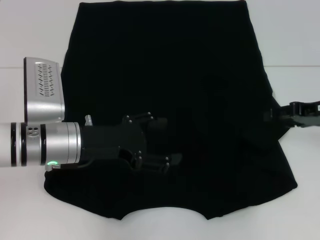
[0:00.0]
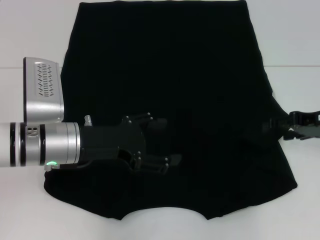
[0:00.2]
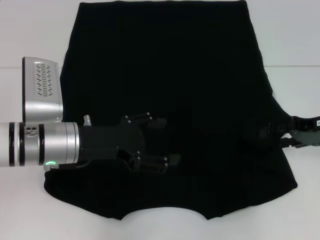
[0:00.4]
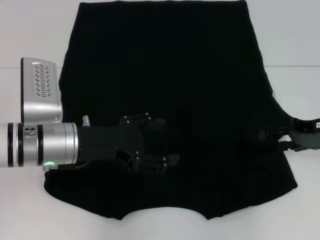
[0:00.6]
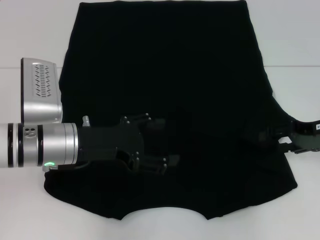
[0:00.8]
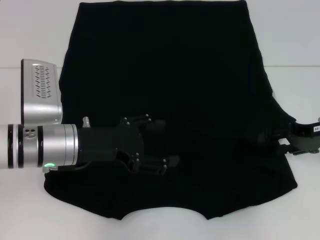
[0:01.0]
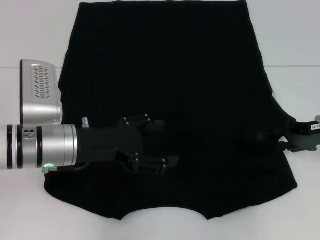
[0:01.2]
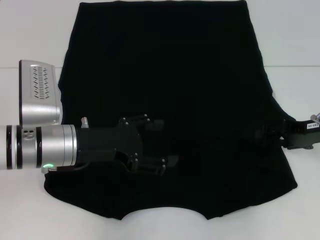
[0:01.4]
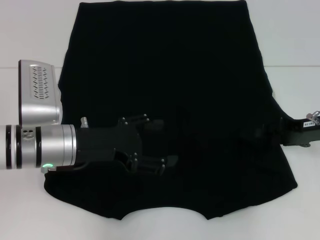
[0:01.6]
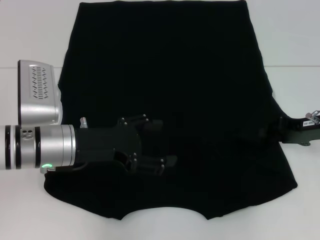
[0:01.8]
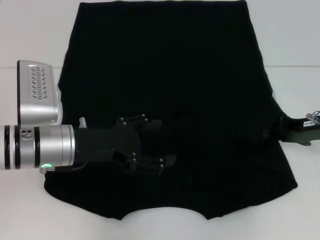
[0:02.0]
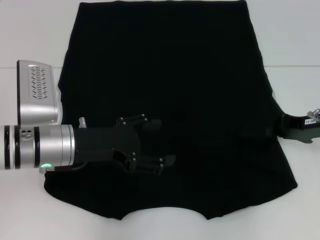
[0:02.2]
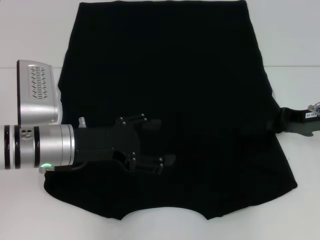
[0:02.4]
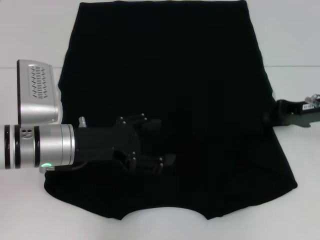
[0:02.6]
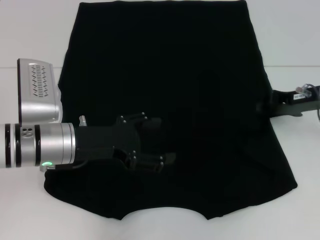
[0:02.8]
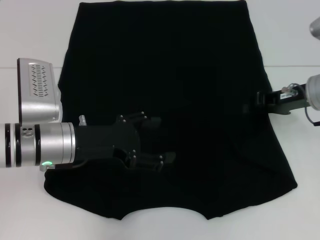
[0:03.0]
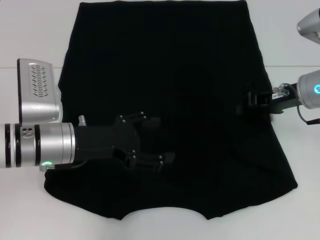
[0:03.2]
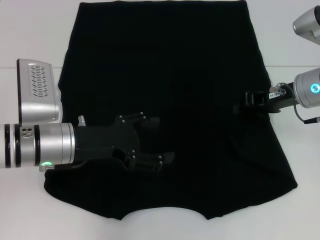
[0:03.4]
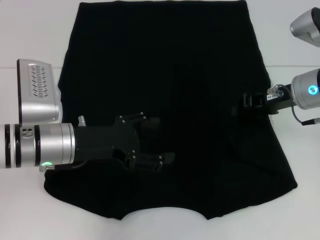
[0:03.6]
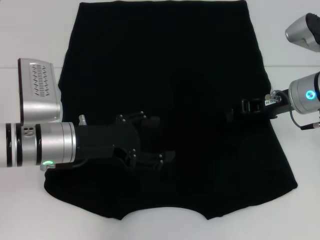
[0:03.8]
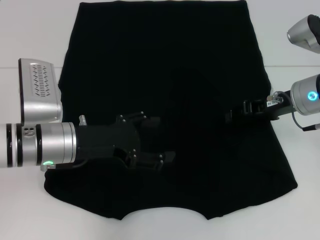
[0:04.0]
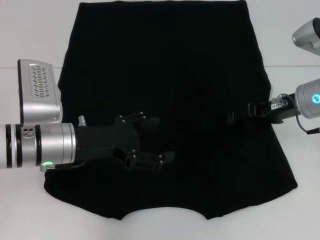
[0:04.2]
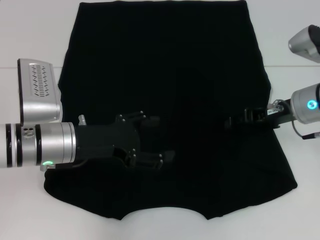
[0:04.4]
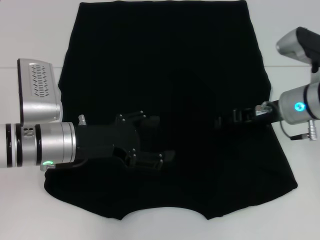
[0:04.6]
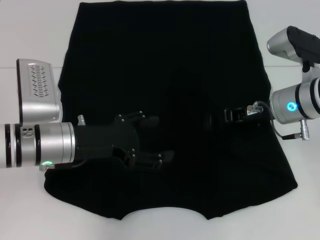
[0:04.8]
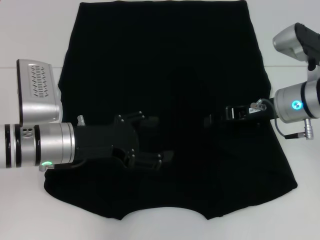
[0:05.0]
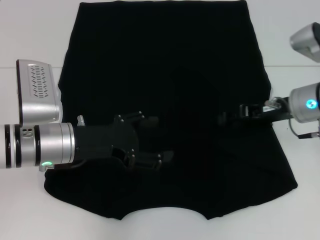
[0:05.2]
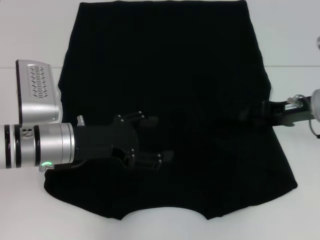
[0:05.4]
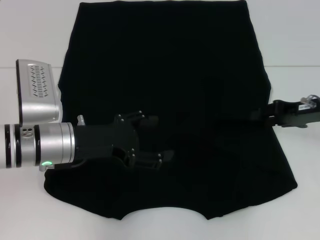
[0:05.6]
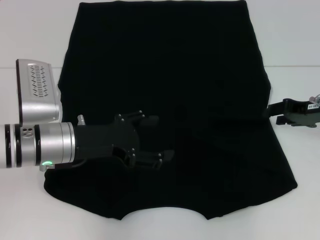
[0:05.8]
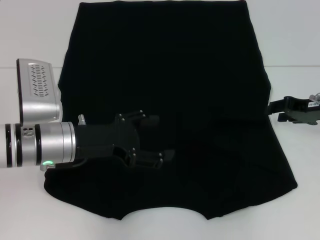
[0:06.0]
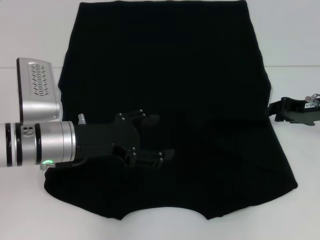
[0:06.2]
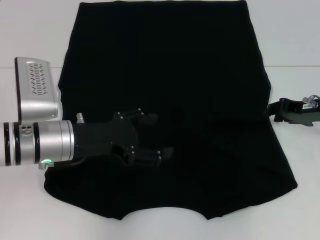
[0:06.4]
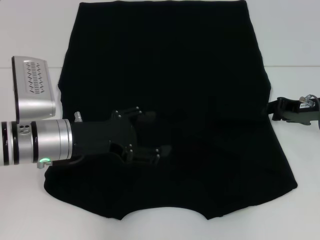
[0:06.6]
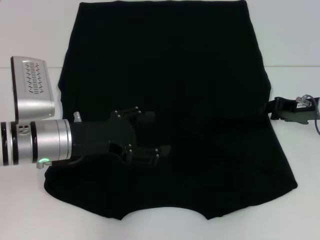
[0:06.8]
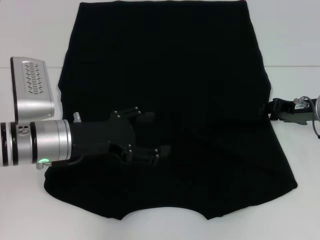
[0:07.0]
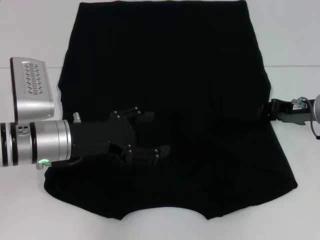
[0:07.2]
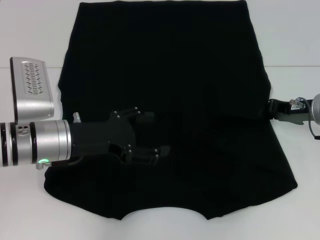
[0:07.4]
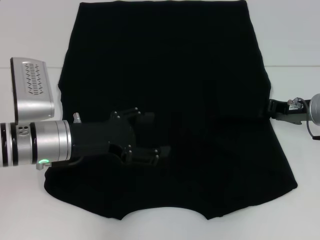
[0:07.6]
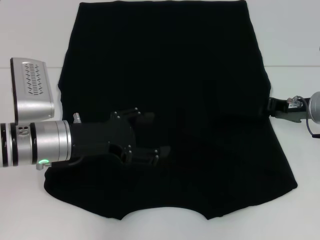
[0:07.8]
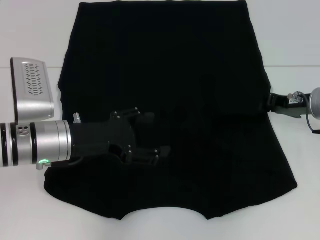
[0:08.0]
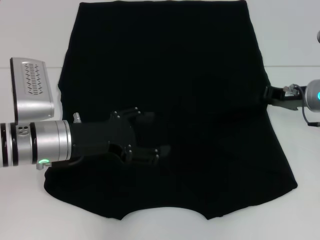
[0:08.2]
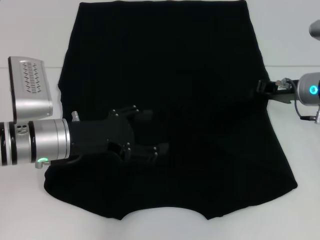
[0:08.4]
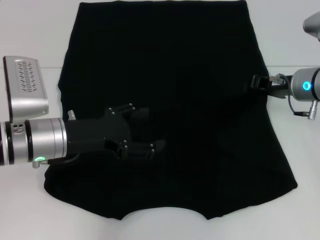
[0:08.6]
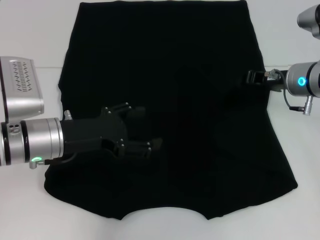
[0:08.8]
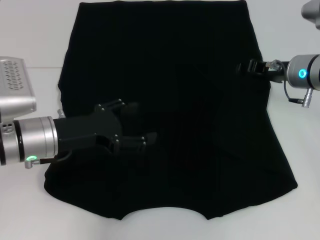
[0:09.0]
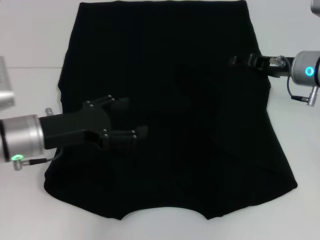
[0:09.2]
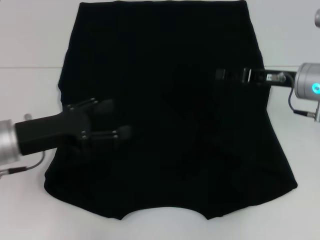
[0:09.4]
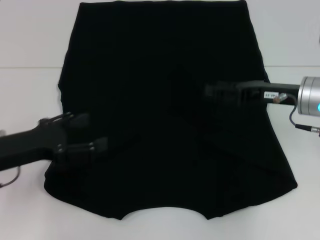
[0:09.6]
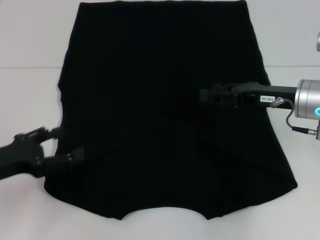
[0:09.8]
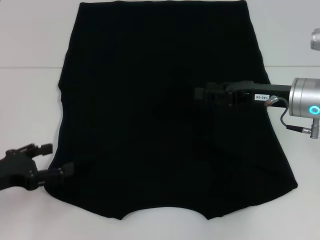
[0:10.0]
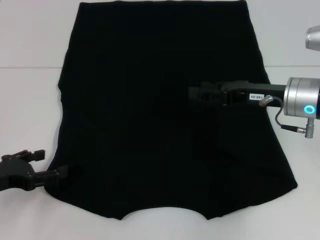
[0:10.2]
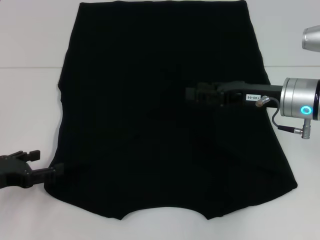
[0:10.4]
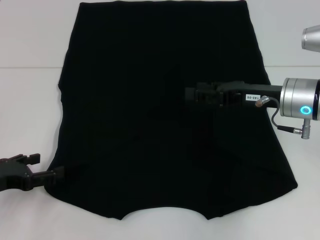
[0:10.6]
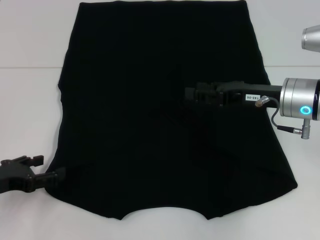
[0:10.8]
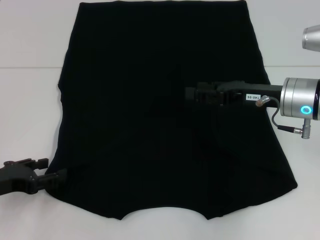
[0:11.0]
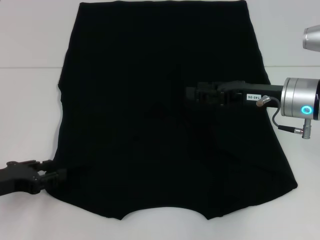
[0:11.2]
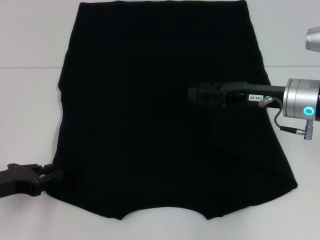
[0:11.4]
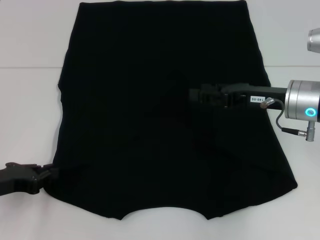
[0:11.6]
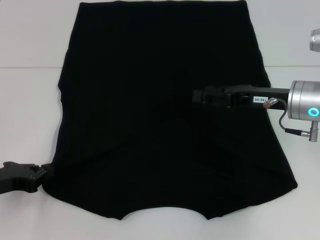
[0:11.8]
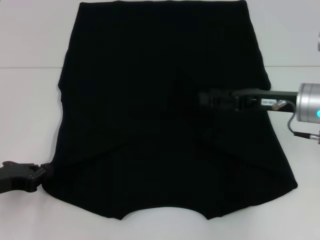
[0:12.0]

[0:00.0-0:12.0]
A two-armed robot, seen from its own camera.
0:00.0 to 0:01.6: The grippers make only small movements.
0:01.6 to 0:03.0: The right gripper moves roughly 5 cm, and closes its fingers.
0:03.0 to 0:04.4: The right gripper opens up.
0:04.4 to 0:06.0: The right gripper shifts roughly 5 cm to the right.
0:06.0 to 0:07.6: The grippers stay close to where they were, moving slightly.
0:07.6 to 0:09.0: The right gripper changes place by roughly 5 cm.
0:09.0 to 0:10.4: The left gripper moves to the left and backward, some 15 cm, while the right gripper moves backward, about 5 cm, and opens up.
0:10.4 to 0:12.0: The left gripper closes its fingers.

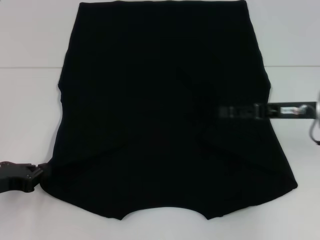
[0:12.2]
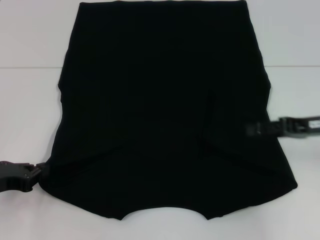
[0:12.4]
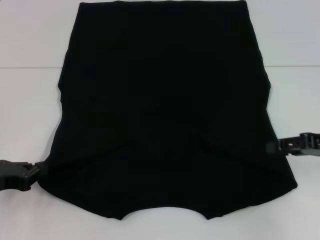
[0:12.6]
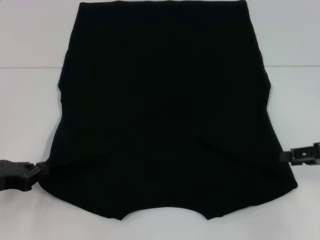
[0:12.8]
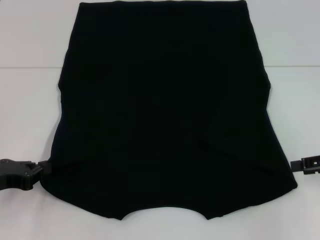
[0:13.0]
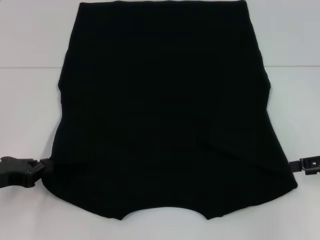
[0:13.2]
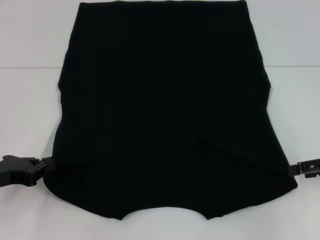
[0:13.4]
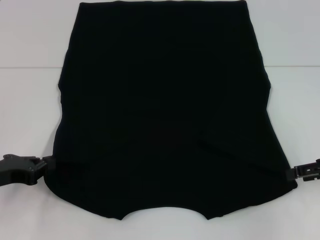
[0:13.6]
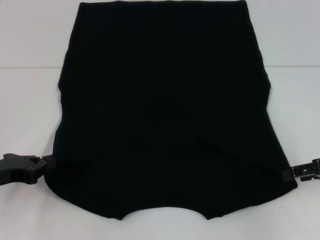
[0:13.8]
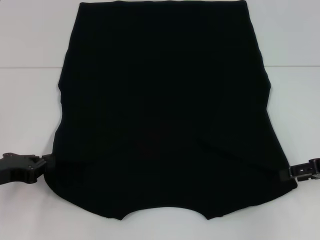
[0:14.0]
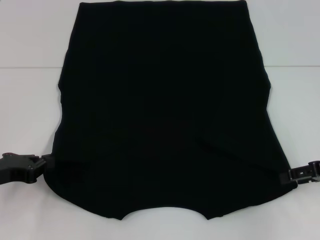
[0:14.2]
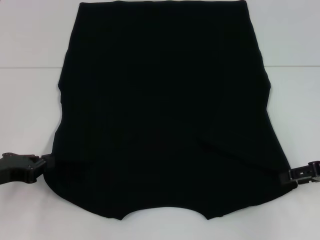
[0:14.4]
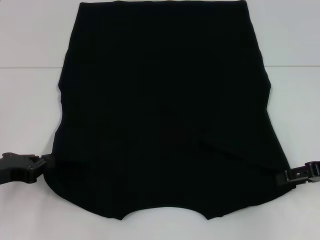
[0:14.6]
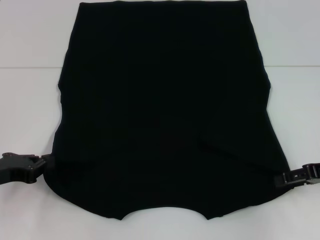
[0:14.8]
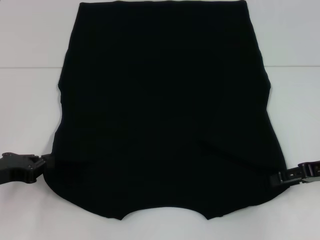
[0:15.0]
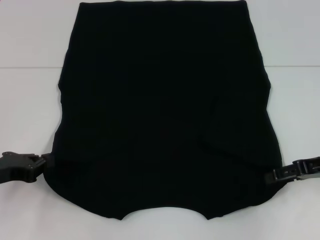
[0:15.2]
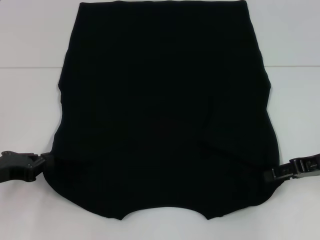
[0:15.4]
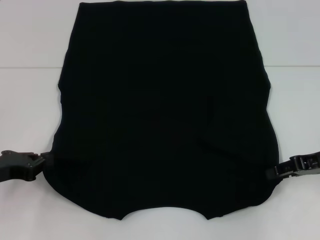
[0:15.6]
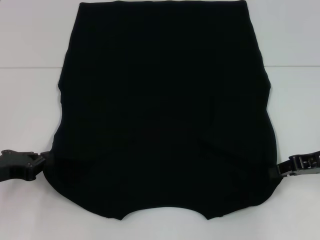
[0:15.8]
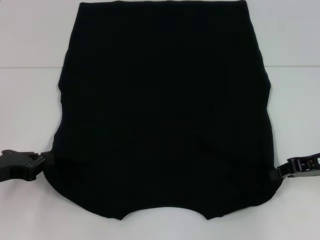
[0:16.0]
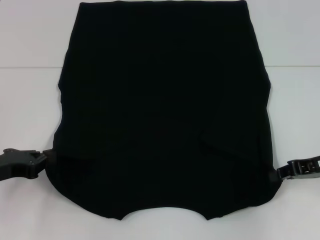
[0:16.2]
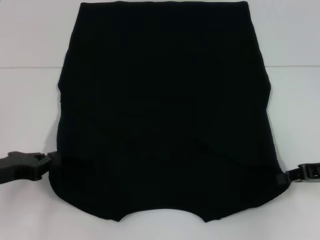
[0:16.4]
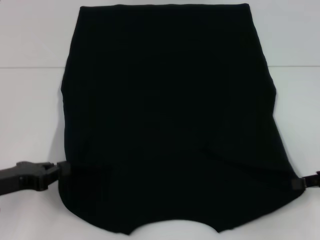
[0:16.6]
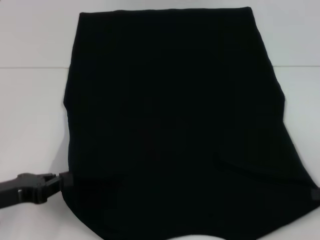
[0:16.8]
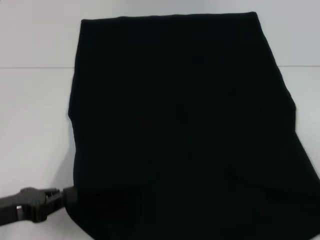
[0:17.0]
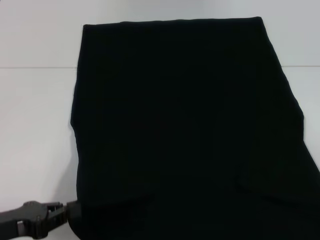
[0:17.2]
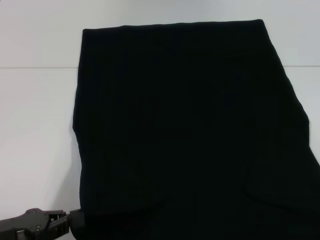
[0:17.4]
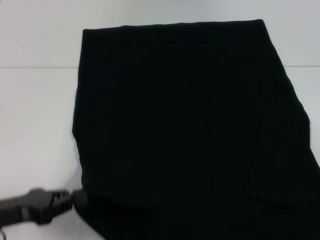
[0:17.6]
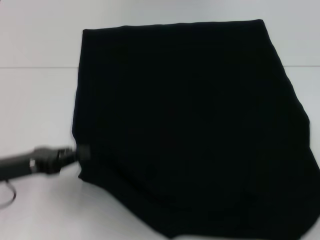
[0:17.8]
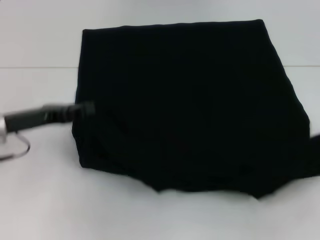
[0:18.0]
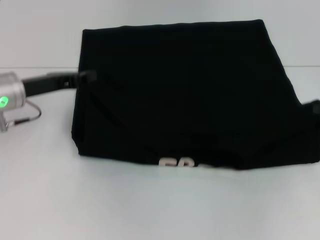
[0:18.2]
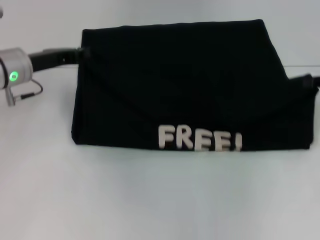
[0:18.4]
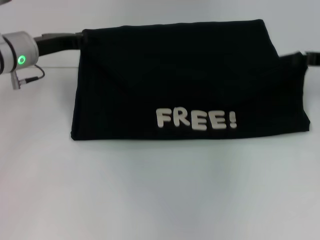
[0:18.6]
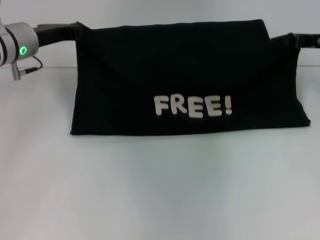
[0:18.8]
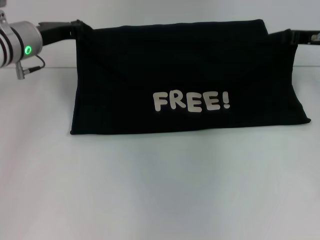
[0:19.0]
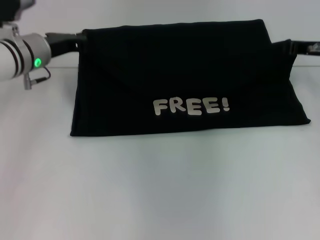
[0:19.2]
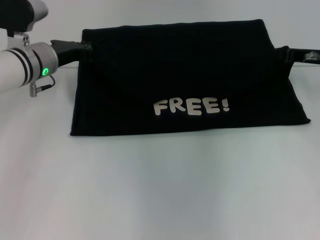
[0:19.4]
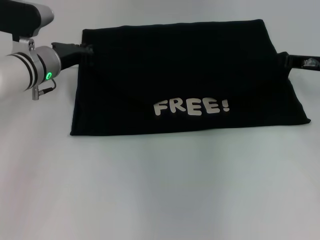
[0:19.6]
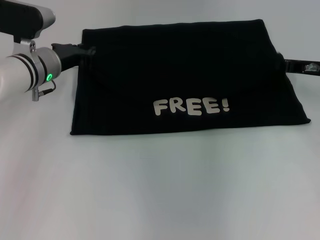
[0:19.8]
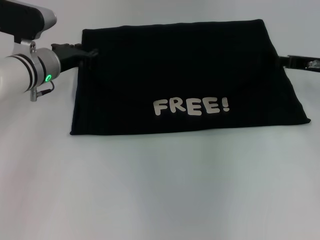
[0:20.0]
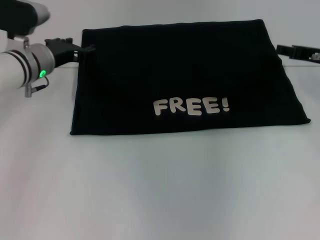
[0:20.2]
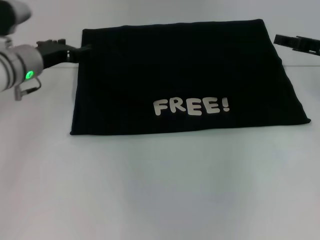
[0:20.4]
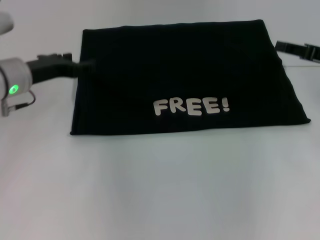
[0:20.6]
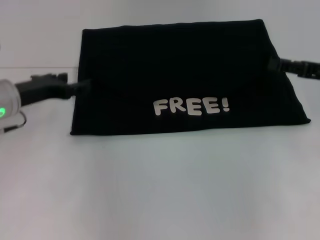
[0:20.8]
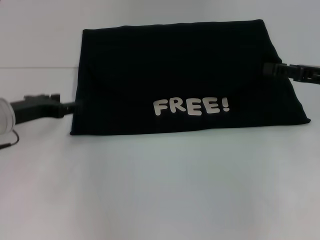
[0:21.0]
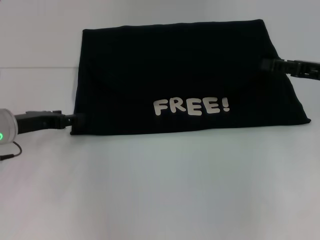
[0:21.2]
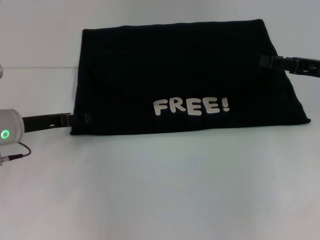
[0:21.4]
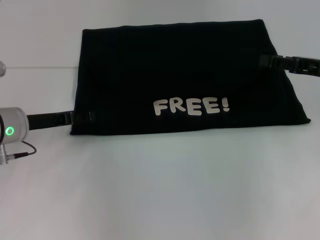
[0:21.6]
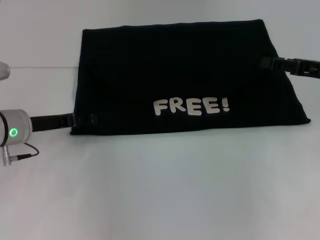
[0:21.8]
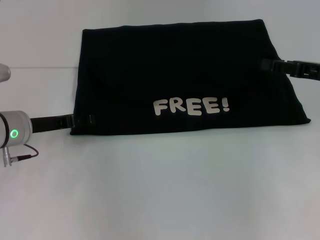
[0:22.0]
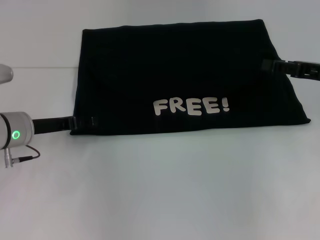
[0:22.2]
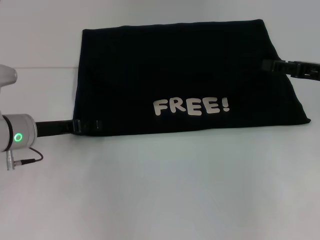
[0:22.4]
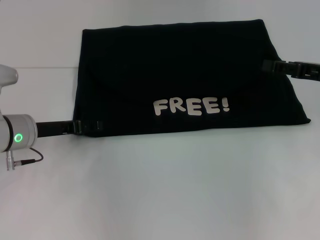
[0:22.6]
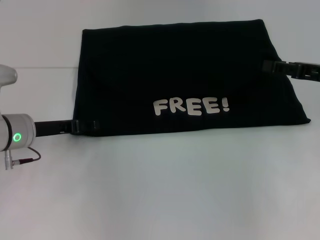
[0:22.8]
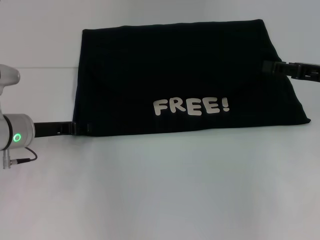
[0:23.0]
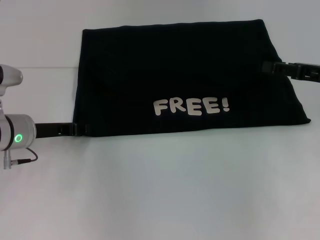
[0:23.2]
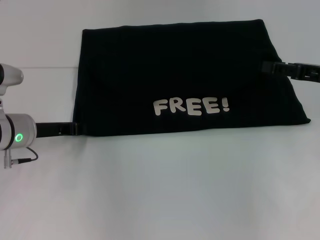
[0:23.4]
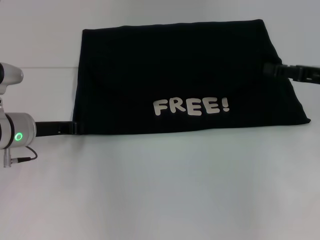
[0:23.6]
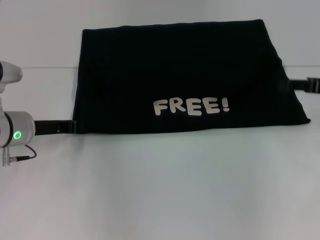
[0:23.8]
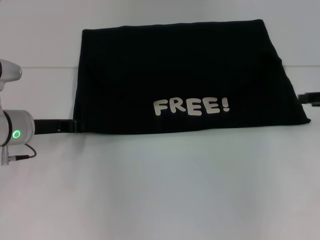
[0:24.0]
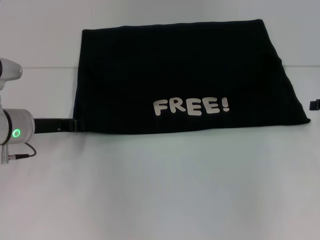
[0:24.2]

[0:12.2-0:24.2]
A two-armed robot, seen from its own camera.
Step, 0:12.6 to 0:14.8: Grab the bottom right corner with your right hand.
Step, 0:15.0 to 0:20.2: Fold the clothes with your left hand.
Step, 0:15.0 to 0:20.2: Fold the clothes with your right hand.
0:12.2 to 0:13.8: The right gripper is displaced to the right by roughly 10 cm.
0:13.8 to 0:15.2: The grippers move only a little.
0:15.2 to 0:16.6: The right gripper changes place by some 5 cm, and closes its fingers.
0:16.6 to 0:18.2: The left gripper goes roughly 15 cm forward, while the right gripper is displaced forward by roughly 5 cm.
0:18.2 to 0:19.8: The right gripper goes roughly 10 cm to the left and forward. Meanwhile the left gripper shifts some 10 cm forward and to the right.
0:19.8 to 0:21.2: The left gripper goes roughly 10 cm backward and to the left, and opens, while the right gripper is displaced backward by approximately 5 cm, and opens its fingers.
0:21.2 to 0:22.6: The grippers make only small movements.
0:22.6 to 0:24.2: The right gripper is displaced to the right by some 5 cm. The left gripper closes its fingers.
